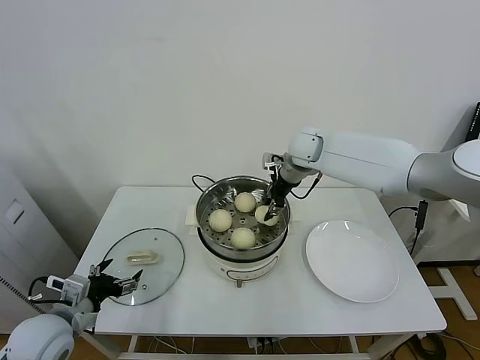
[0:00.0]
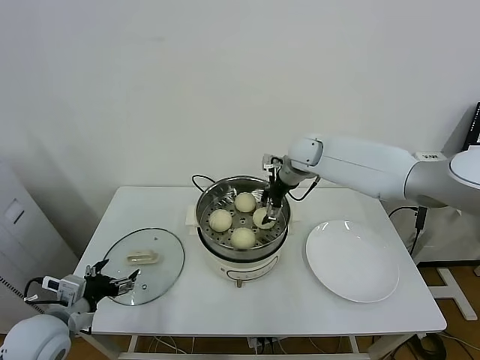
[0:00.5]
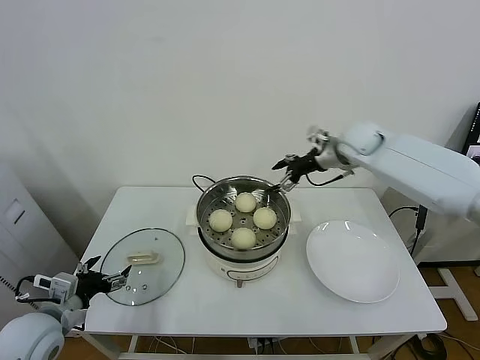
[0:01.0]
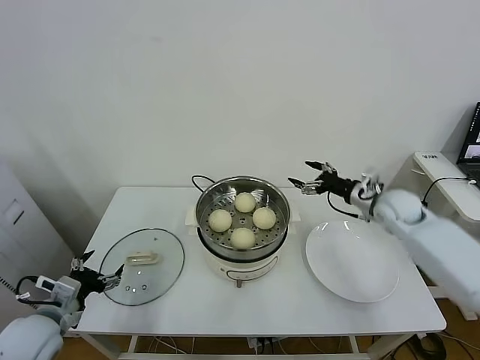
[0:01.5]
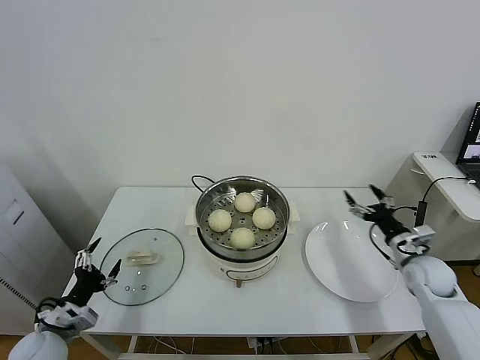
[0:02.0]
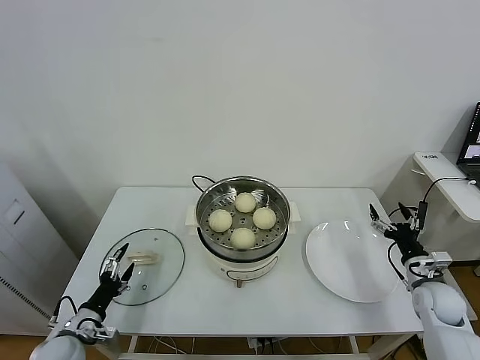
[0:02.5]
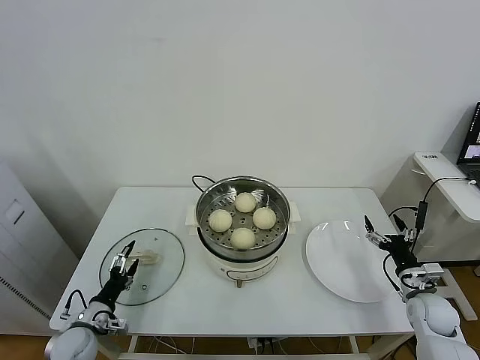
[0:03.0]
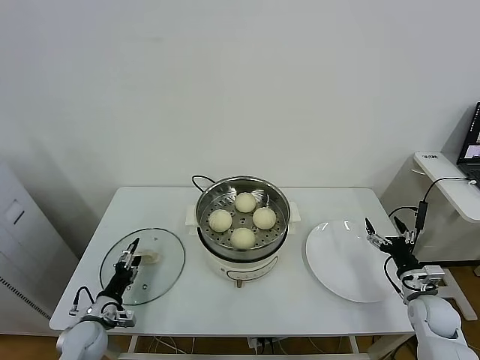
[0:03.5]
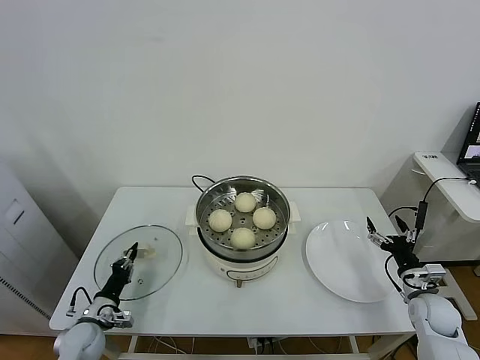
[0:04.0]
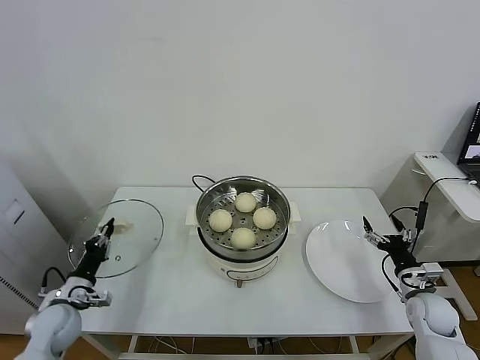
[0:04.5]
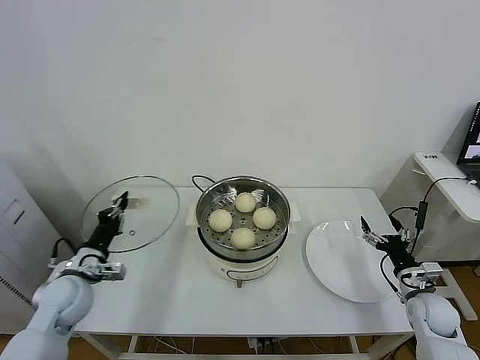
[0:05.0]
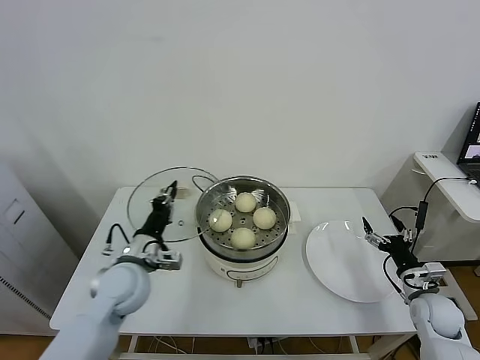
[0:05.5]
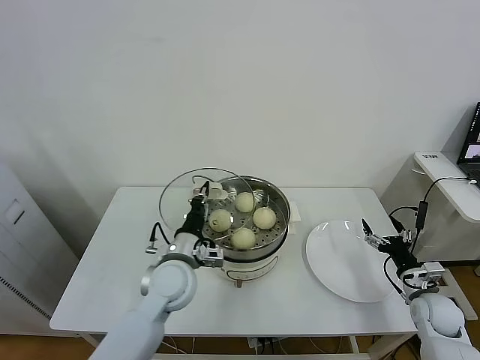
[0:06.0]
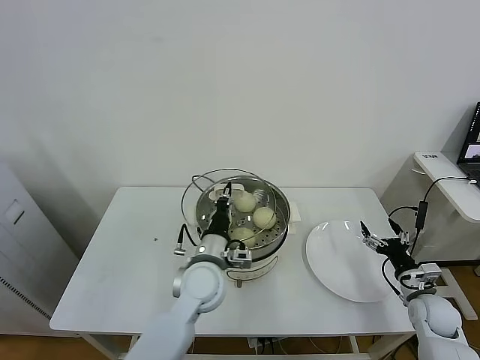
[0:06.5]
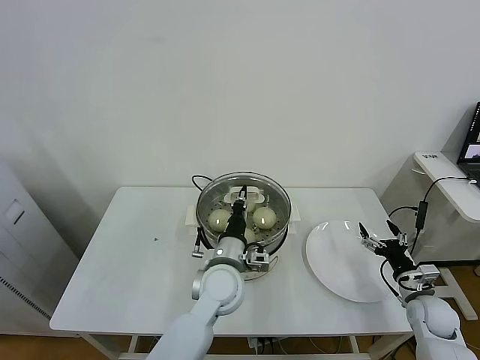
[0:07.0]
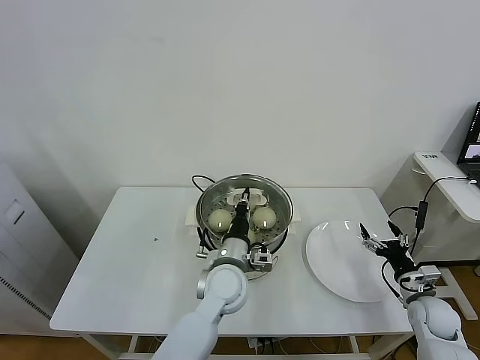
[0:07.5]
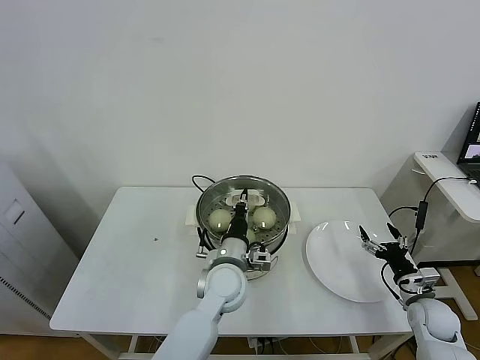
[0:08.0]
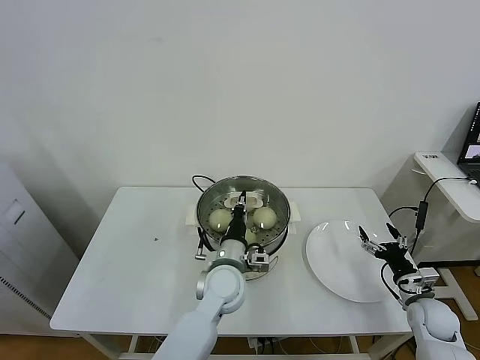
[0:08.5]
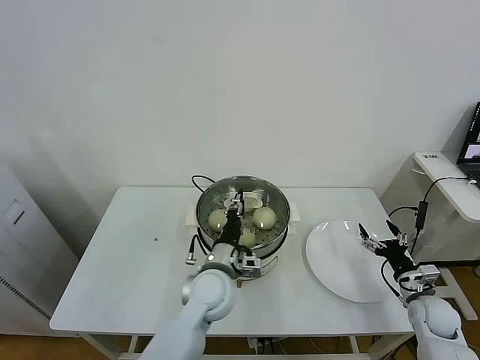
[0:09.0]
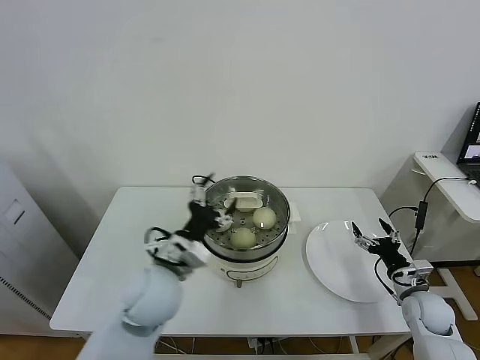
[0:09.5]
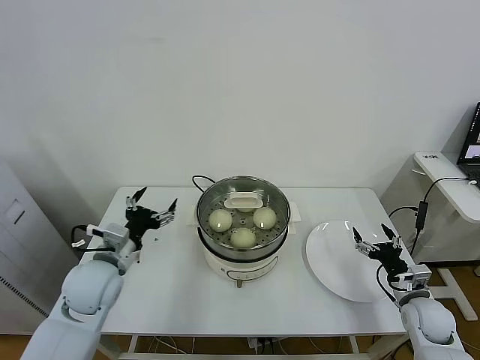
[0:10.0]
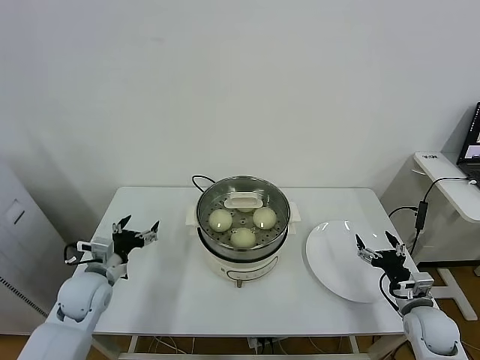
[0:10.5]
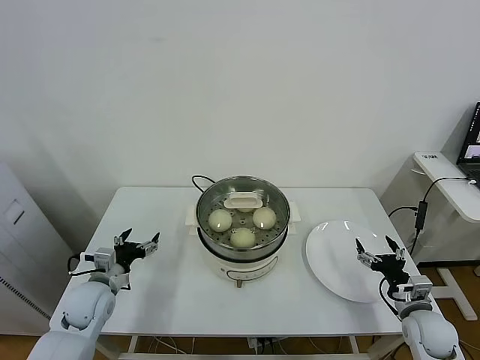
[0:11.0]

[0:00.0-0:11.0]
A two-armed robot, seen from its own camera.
Task of the whole recording: take steamed baozi put them in steamer.
Step, 0:01.0 to 0:04.0: Grasp the pot lid with left gripper.
Step, 0:04.5 to 0:09.5: Place the pot lid on the steamer with left gripper.
0:00.0 to 0:02.0: The right gripper heads to the right, backward and downward, covering approximately 40 cm, and opens up; the left gripper heads downward, covering some 5 cm.
0:02.0 to 0:03.5: The left gripper travels downward and forward by approximately 10 cm, while the right gripper goes approximately 10 cm downward and backward.
0:03.5 to 0:05.5: The left gripper heads upward and to the right, covering approximately 25 cm, and closes its fingers.
0:05.5 to 0:07.5: The left gripper heads to the right, covering approximately 20 cm.
0:07.5 to 0:09.0: The left gripper opens.
0:09.0 to 0:11.0: The right gripper changes place by about 5 cm, while the left gripper shifts approximately 30 cm to the left, and opens its fingers.
